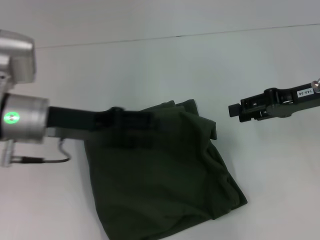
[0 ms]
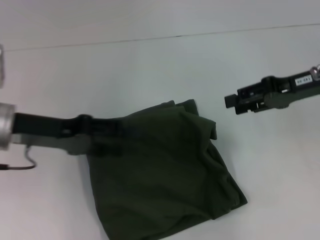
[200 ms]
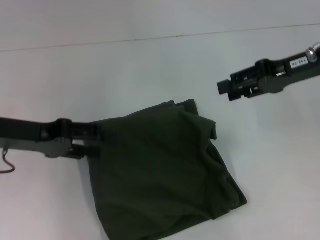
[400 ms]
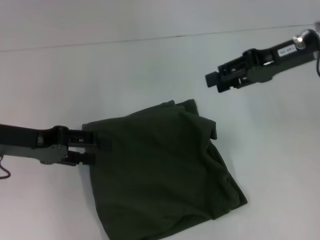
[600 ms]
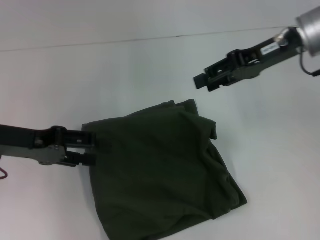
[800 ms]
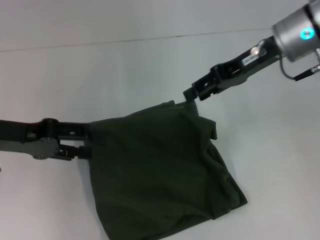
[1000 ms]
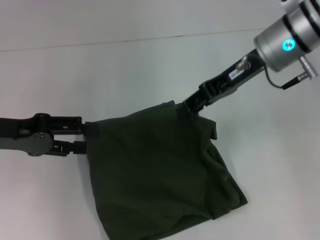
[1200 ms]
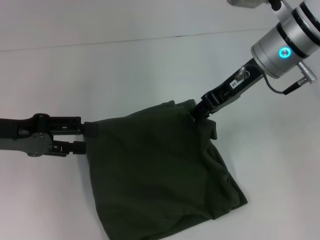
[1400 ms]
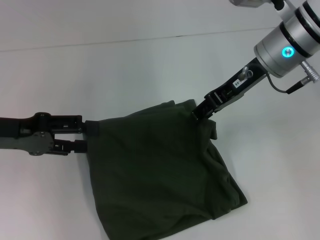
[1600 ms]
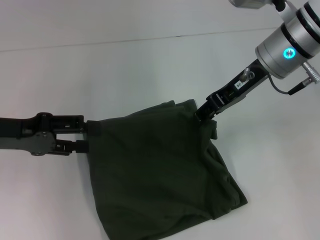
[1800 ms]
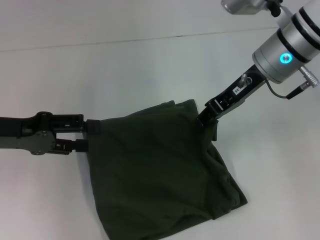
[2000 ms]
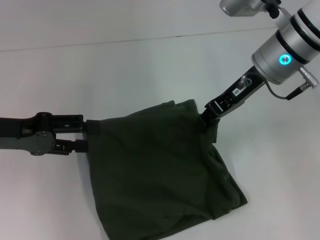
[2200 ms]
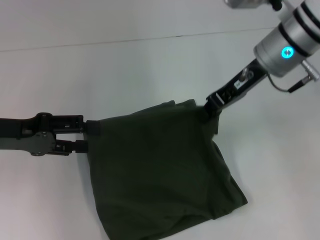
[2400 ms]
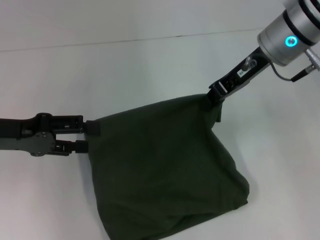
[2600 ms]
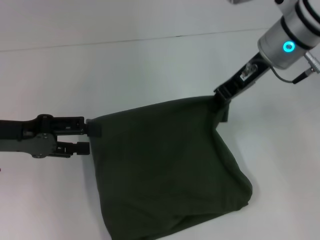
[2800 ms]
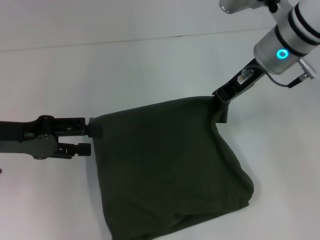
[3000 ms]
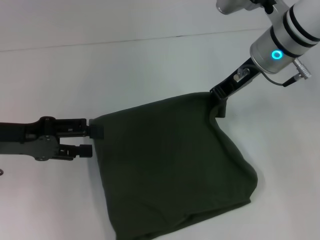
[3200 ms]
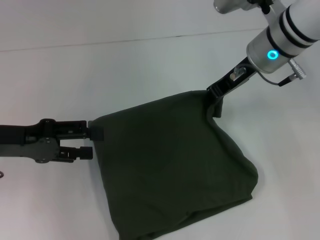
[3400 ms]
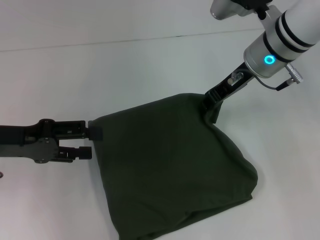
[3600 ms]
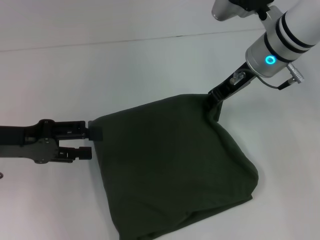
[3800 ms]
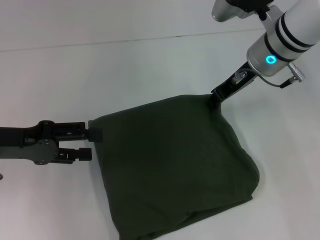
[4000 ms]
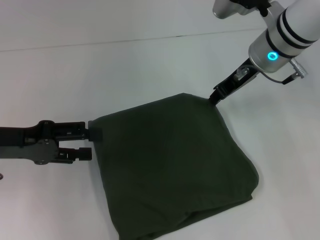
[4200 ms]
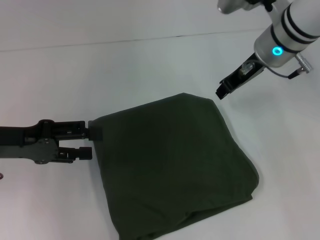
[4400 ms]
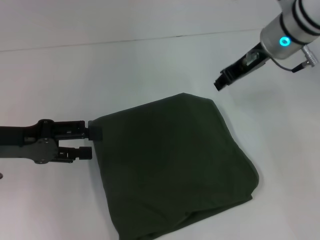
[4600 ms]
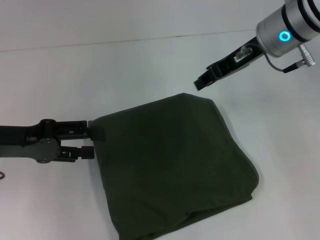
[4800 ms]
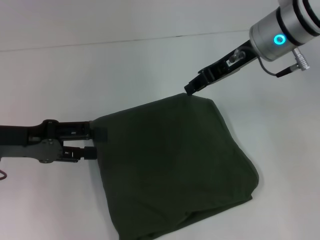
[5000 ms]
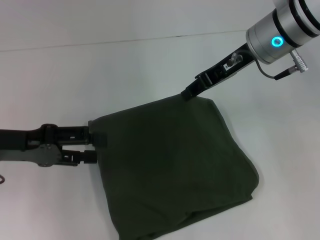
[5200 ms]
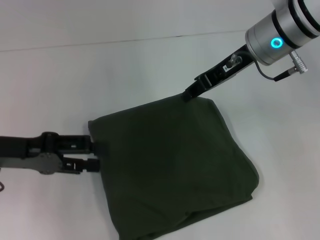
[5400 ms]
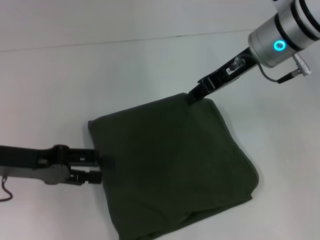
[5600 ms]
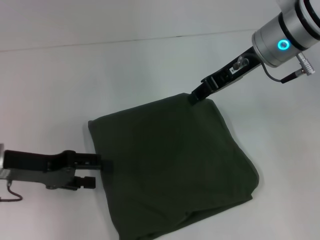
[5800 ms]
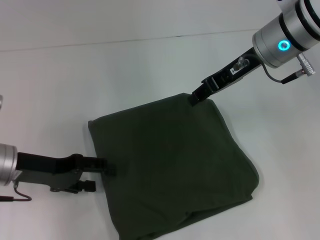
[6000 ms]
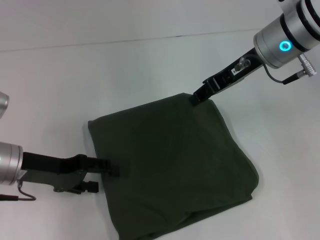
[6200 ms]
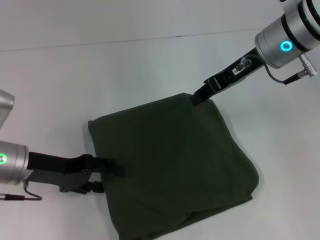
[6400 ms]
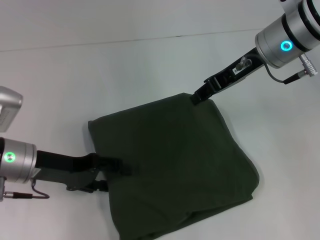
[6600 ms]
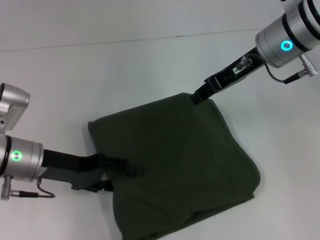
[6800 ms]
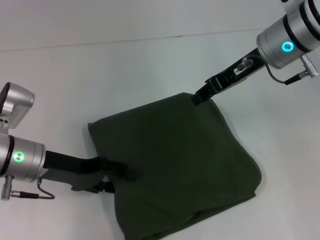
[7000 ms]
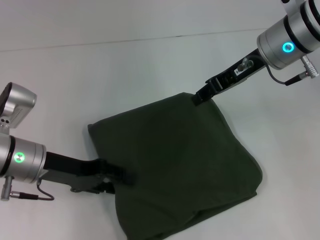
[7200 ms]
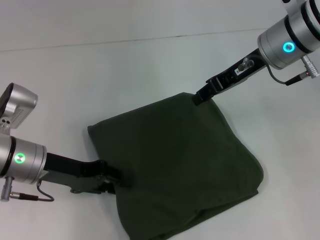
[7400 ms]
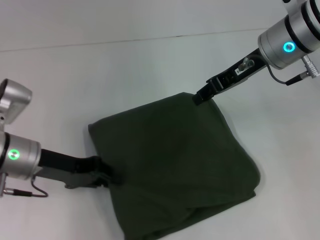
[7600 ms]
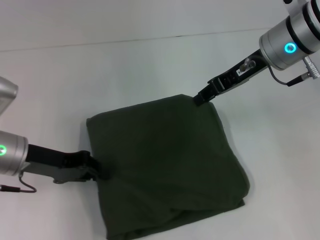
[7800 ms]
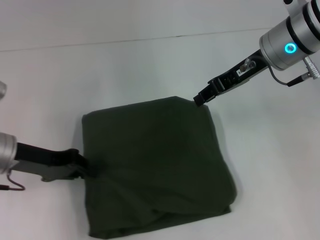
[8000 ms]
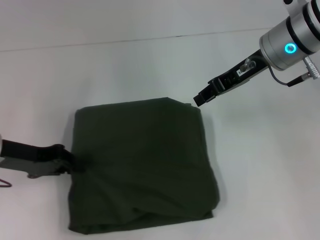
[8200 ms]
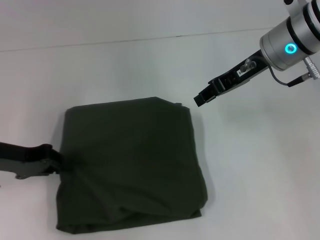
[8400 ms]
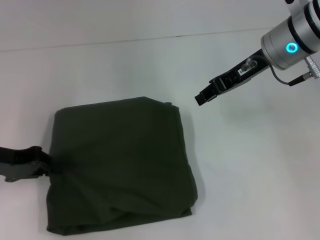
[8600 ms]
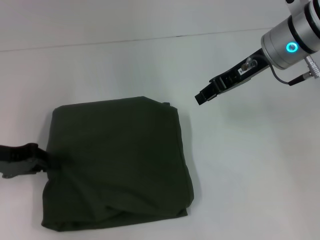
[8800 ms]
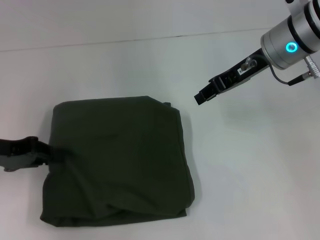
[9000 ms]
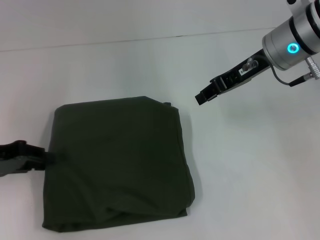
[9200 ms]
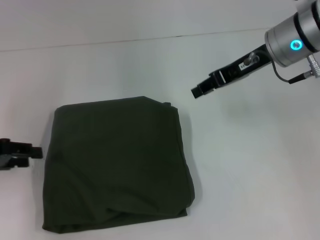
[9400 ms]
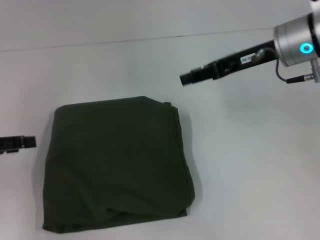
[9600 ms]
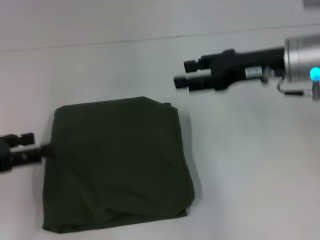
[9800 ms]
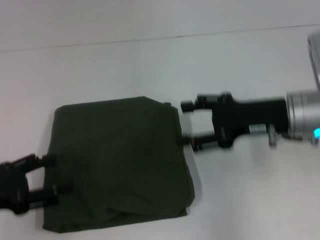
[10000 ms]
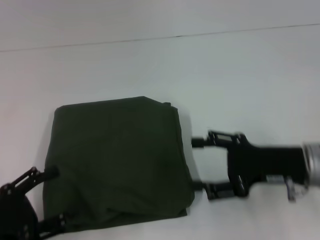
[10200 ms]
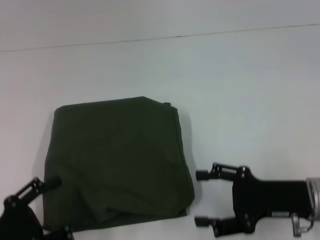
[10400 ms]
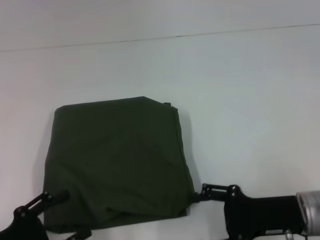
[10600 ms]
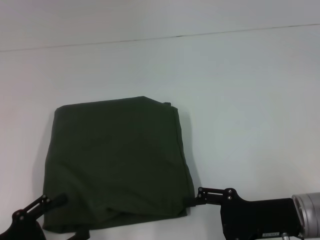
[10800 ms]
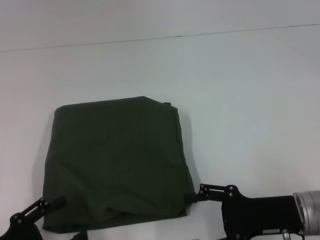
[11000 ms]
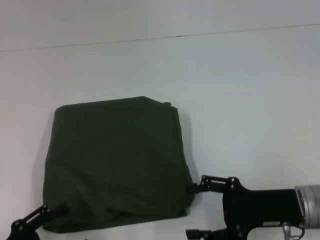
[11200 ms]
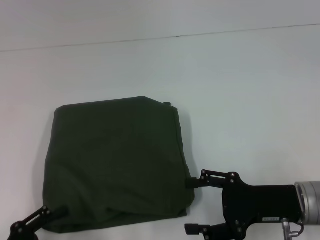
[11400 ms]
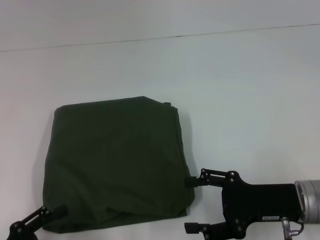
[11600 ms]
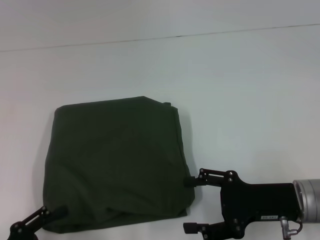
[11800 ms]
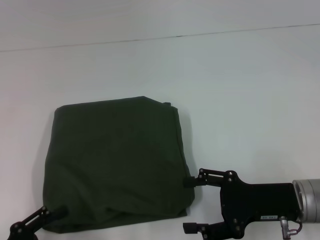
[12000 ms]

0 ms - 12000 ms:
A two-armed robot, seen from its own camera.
0 ms - 1600 ms: The left gripper goes roughly 10 cm to the left. The right gripper heads to the left and forward, covering roughly 10 cm.
1600 ms - 3000 ms: The right gripper closes.
3000 ms - 4400 ms: The grippers make only small movements.
4400 ms - 6000 ms: The left gripper is displaced downward by approximately 5 cm.
6000 ms - 7600 ms: The left gripper closes.
7600 ms - 9000 ms: The left gripper moves to the left, approximately 10 cm.
9000 ms - 10400 ms: Both grippers move backward and downward, roughly 20 cm. The right gripper opens up; the left gripper opens.
10400 ms - 12000 ms: There are only small adjustments of the grippers.

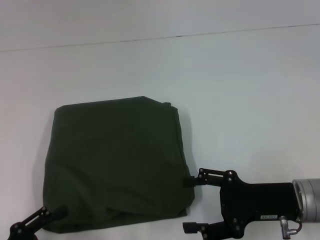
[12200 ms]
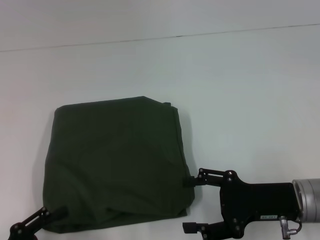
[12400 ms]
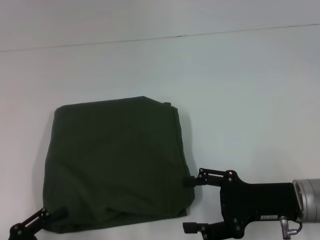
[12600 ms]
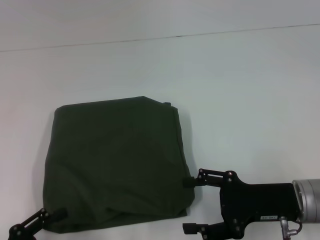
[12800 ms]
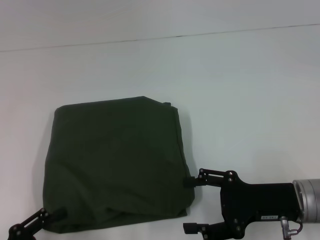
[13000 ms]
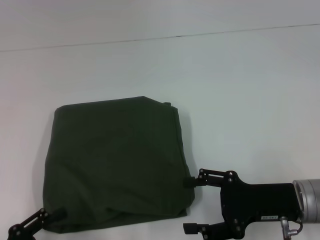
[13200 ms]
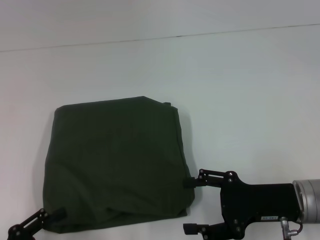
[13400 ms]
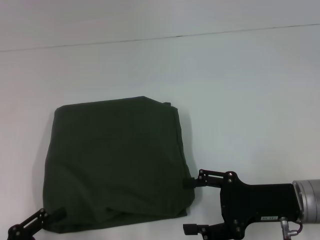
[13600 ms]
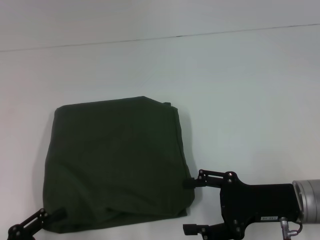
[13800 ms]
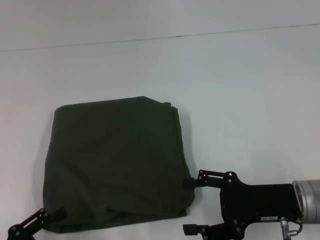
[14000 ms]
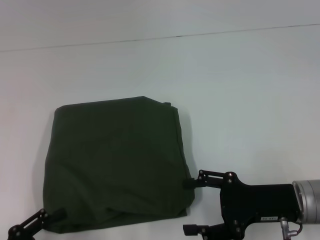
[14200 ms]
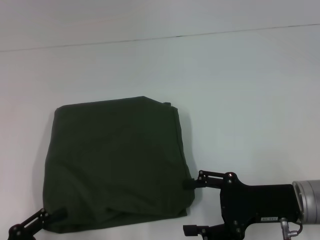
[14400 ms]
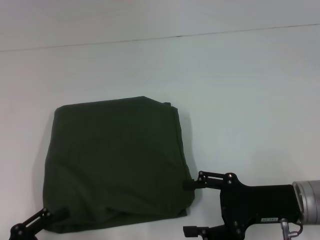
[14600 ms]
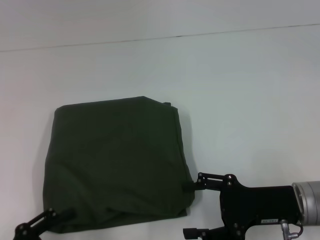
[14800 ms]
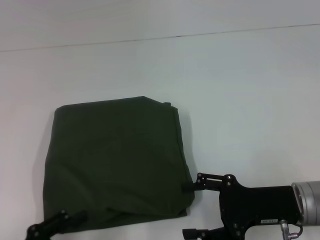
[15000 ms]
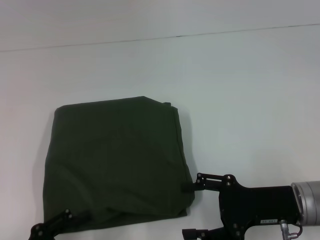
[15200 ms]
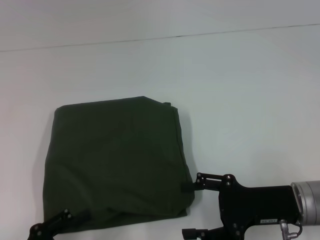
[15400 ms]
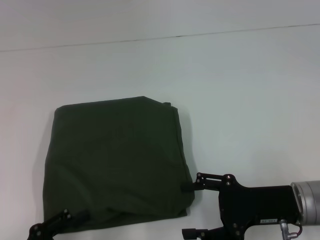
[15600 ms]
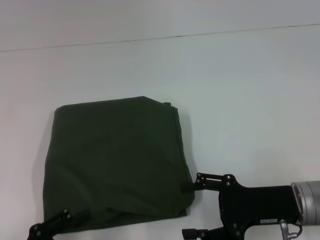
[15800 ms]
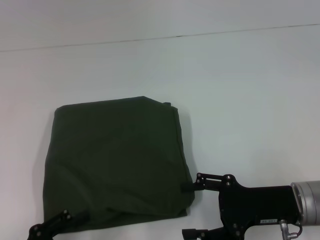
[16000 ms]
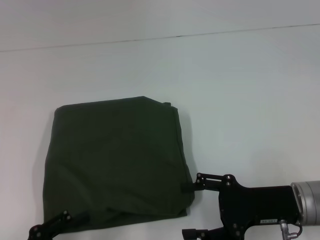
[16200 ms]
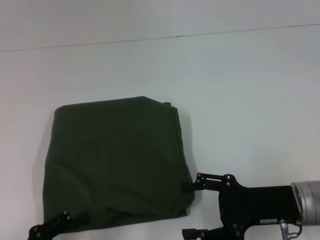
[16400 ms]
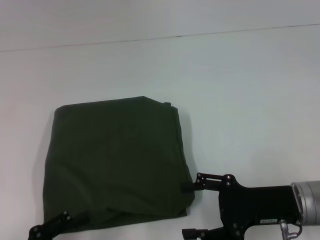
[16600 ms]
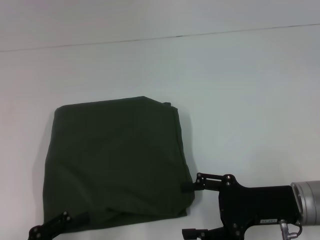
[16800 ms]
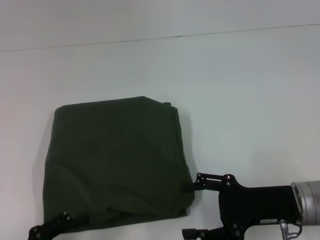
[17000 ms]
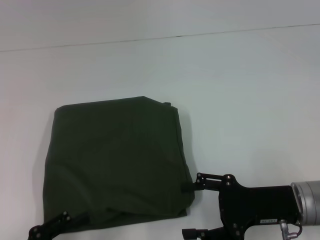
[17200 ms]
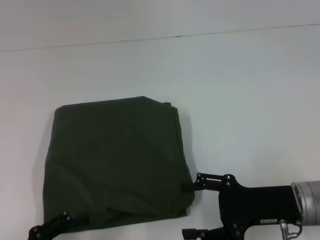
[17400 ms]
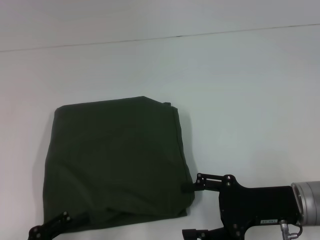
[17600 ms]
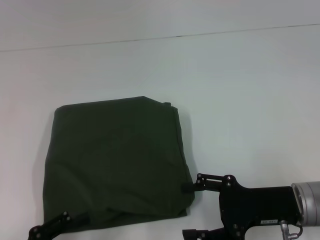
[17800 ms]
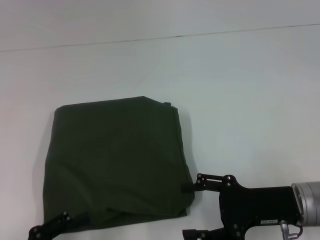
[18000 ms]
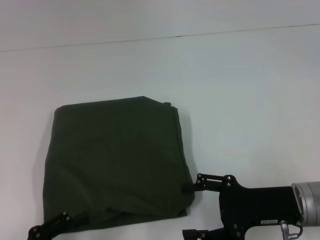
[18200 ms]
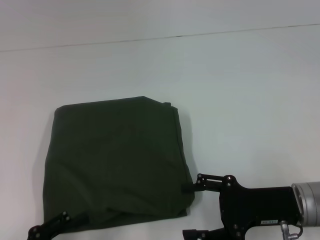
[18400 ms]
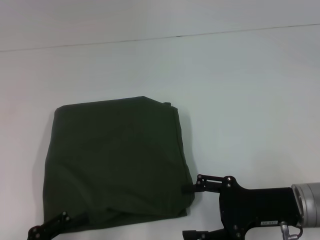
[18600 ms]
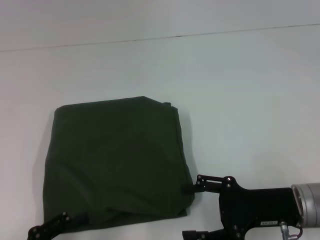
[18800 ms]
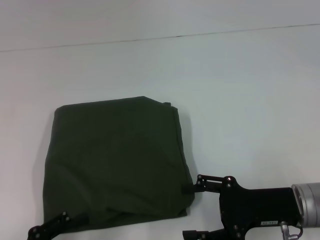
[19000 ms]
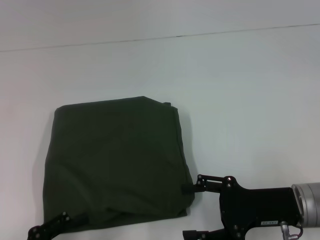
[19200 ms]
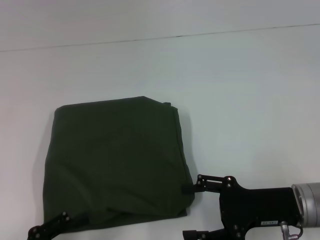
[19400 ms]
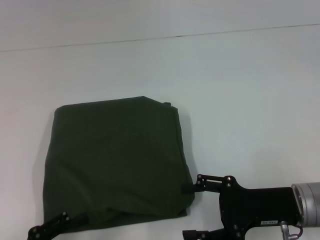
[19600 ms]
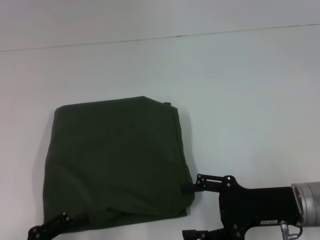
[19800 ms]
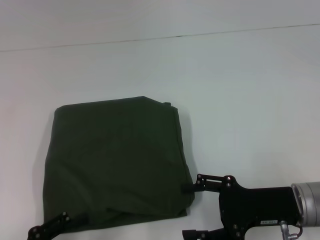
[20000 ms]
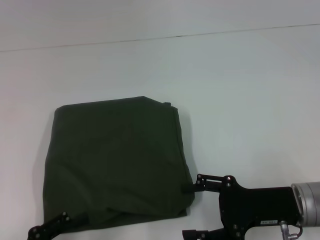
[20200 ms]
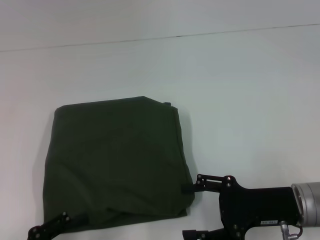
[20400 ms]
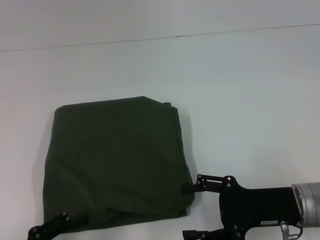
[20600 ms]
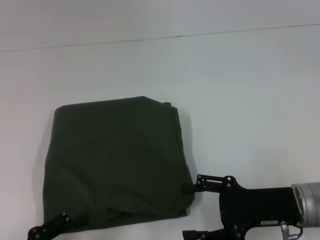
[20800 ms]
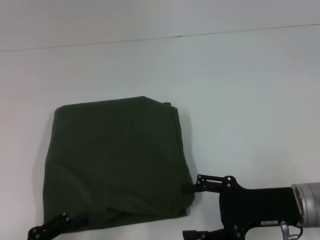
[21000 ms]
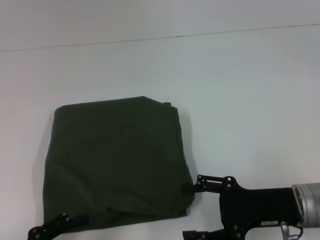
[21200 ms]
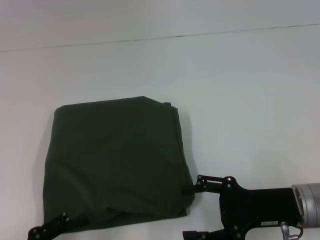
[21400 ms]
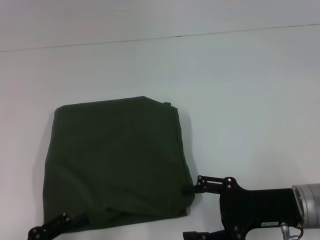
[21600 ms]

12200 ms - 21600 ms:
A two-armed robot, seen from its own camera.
12200 ms - 13800 ms: Both grippers stay put.
13800 ms - 15400 ms: The grippers stay close to where they were, moving slightly.
15400 ms - 21600 ms: Both grippers stay put.

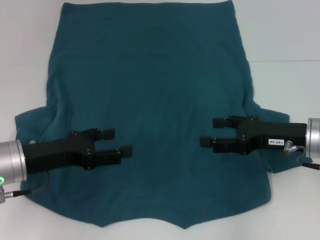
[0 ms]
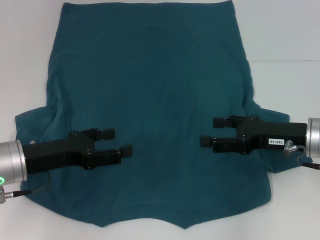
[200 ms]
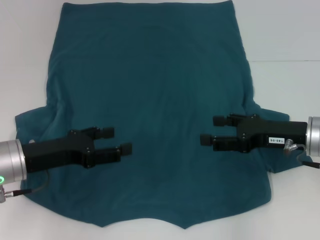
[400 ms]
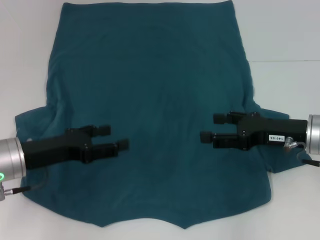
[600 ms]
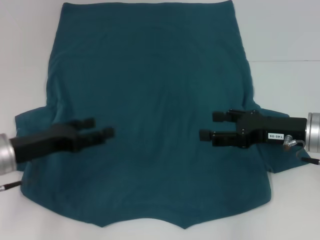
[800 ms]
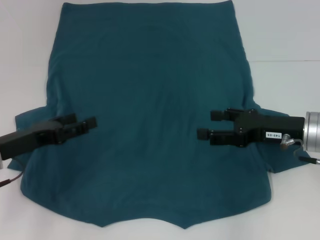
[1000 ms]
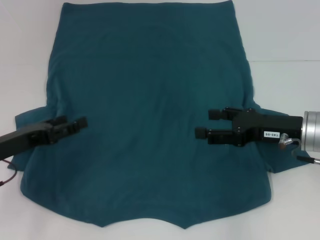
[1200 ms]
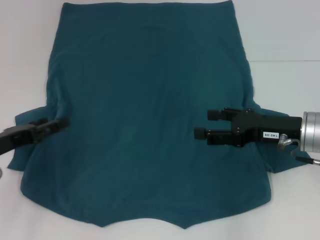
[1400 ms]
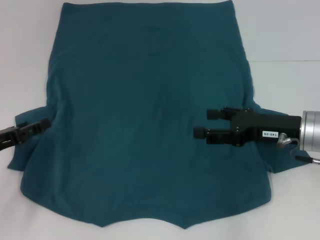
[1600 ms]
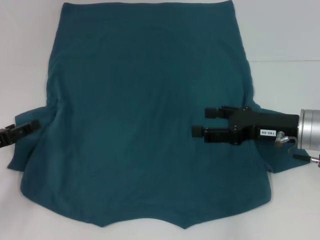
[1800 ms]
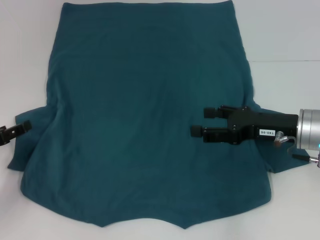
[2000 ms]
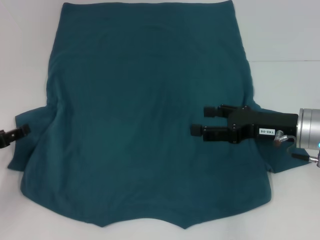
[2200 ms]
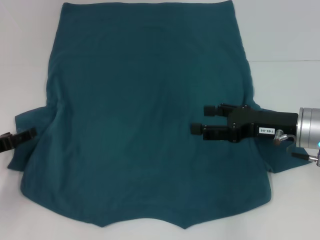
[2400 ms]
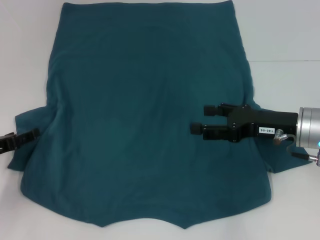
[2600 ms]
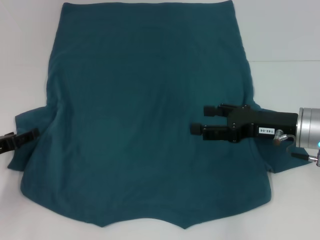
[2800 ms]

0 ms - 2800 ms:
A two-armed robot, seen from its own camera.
0 ms - 1400 ms: The left gripper is displaced to the left by approximately 5 cm.
1400 ms - 2800 ms: The grippers make only small movements.
